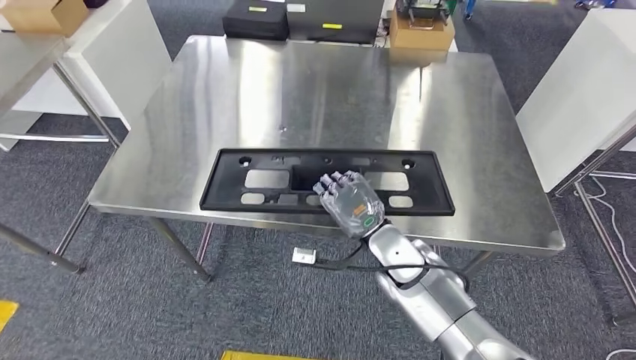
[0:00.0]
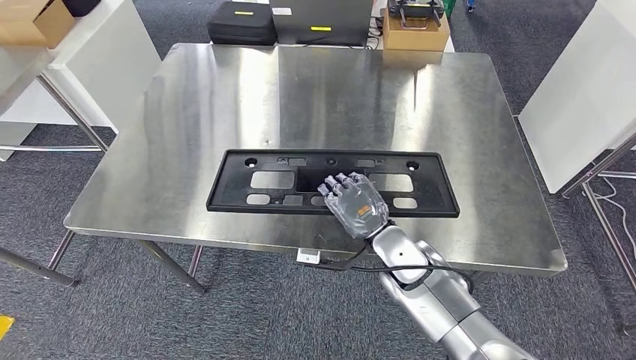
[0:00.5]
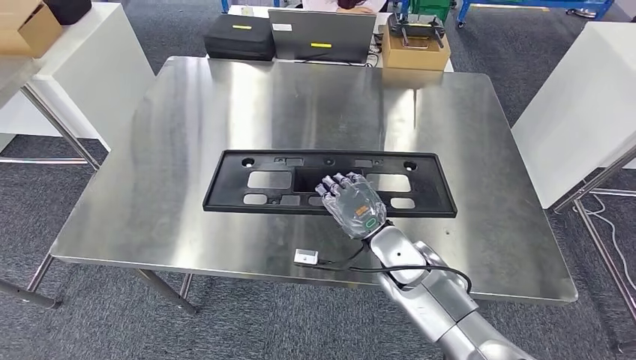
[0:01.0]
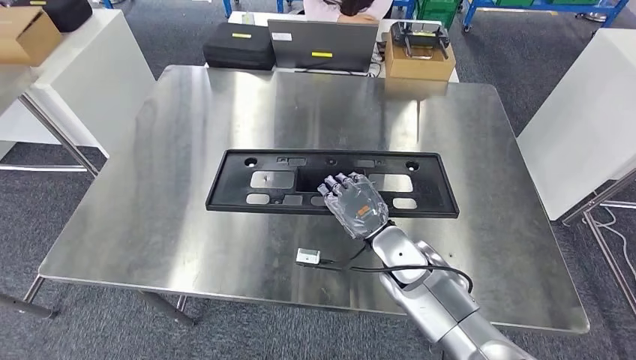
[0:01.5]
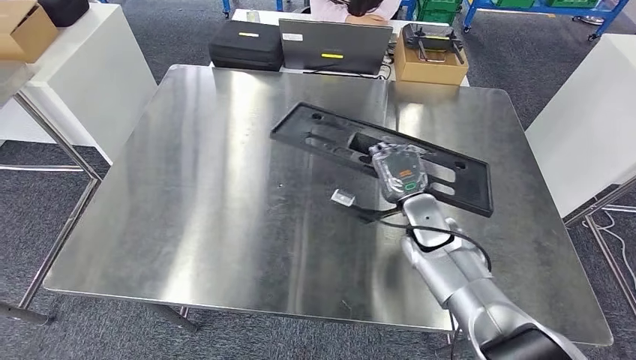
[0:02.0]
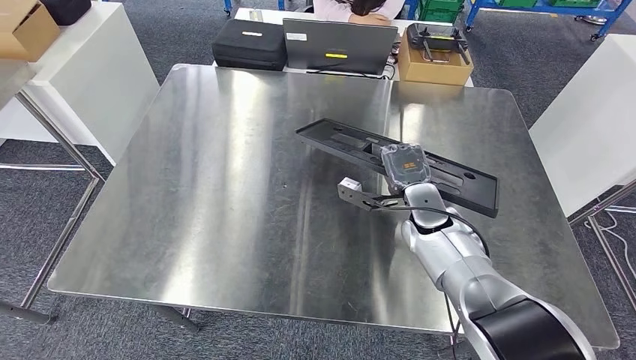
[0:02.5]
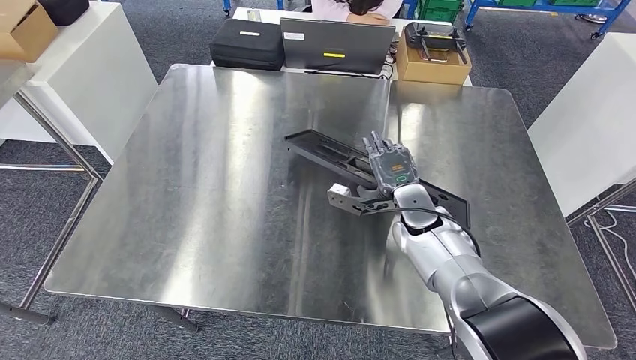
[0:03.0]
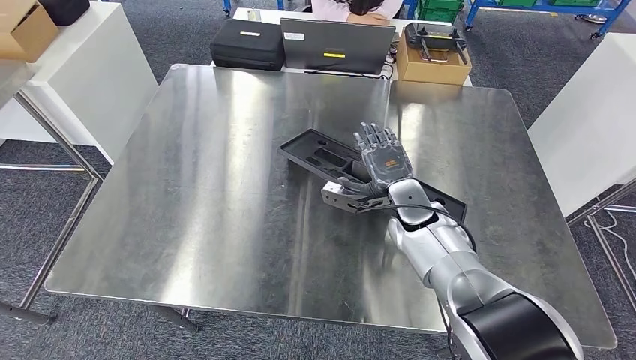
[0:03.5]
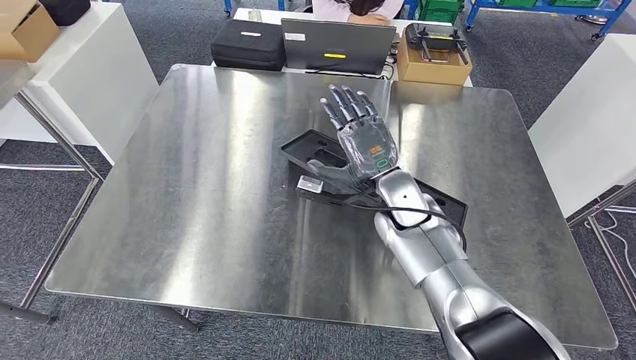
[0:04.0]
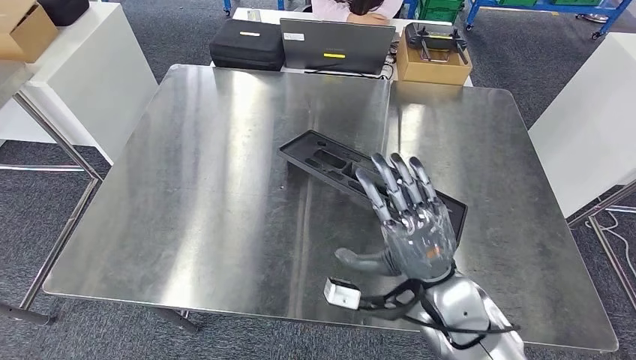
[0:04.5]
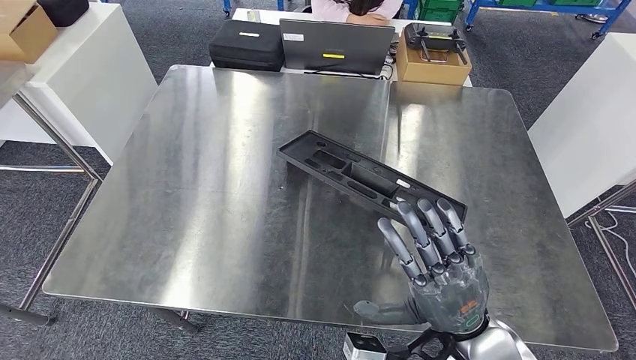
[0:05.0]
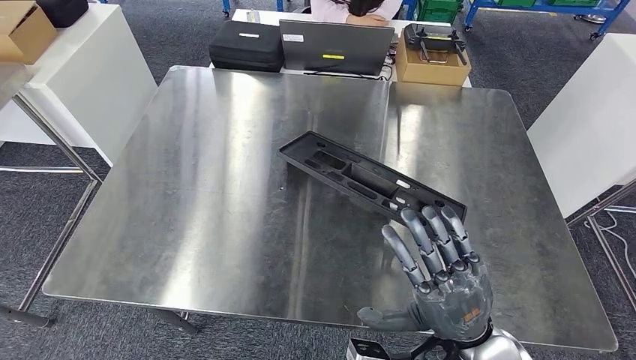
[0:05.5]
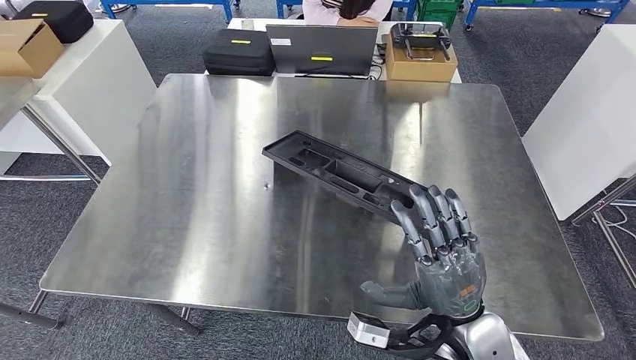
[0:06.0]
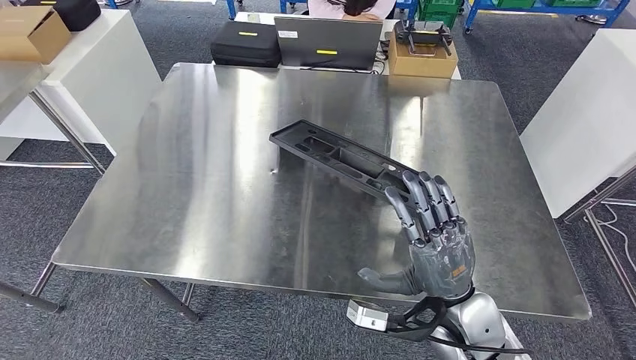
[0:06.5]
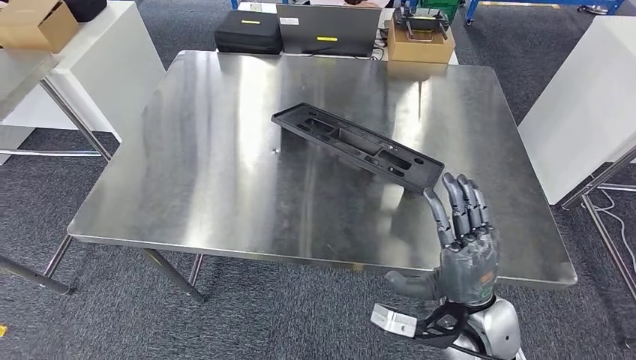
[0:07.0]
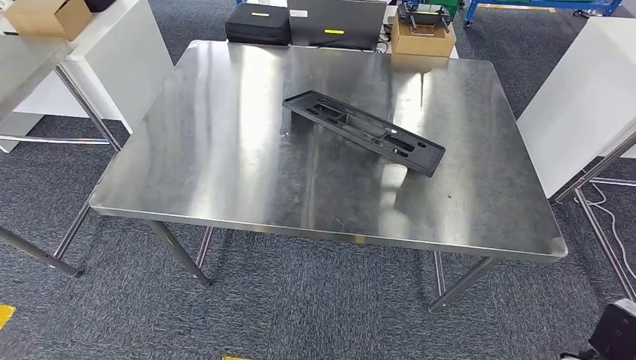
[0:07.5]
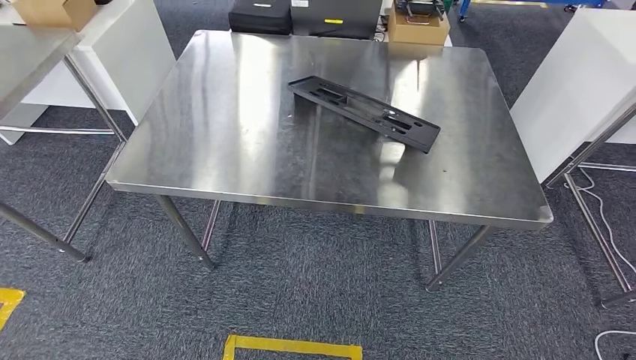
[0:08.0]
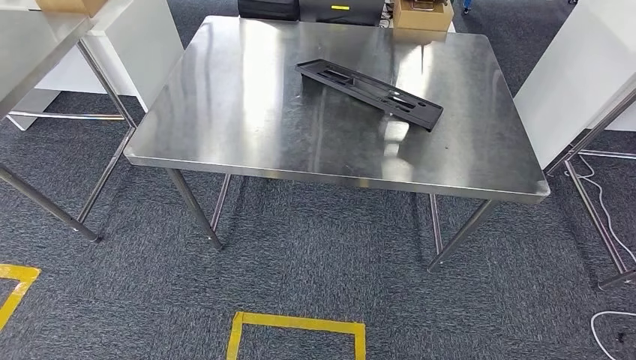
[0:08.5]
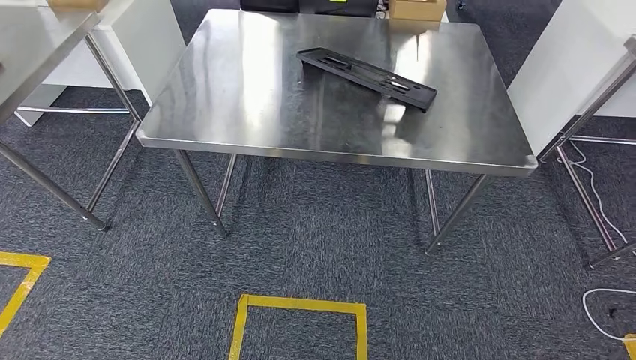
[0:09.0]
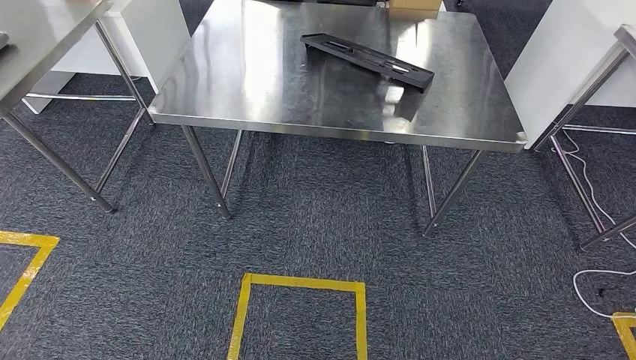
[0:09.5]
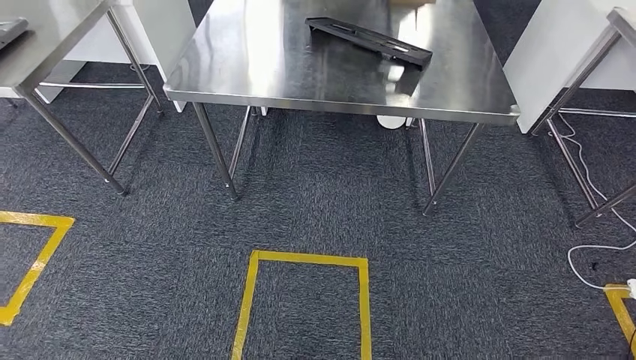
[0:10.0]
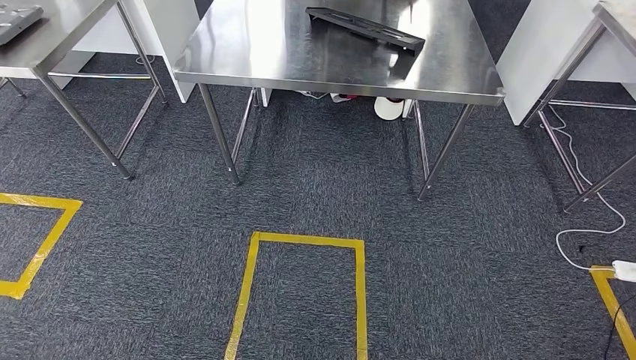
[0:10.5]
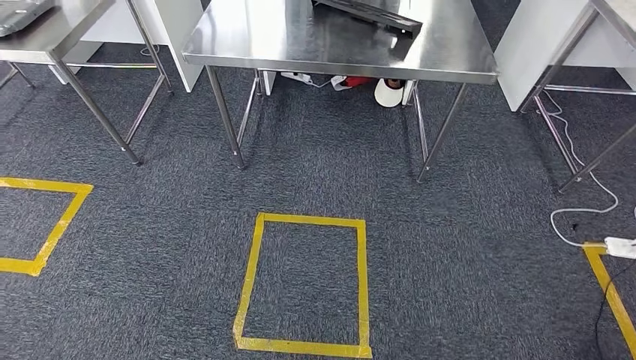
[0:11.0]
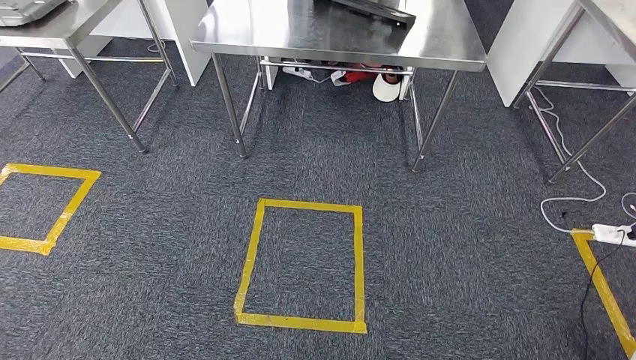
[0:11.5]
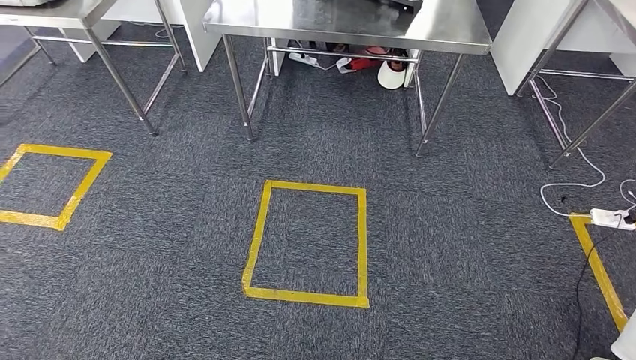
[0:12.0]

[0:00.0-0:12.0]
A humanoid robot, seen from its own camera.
Step, 0:00.0 to 0:06.5: Insert the large material into the corresponding slot on the workbench.
0:02.0 to 0:04.0: The right hand heads to the left, covering some 5 cm.

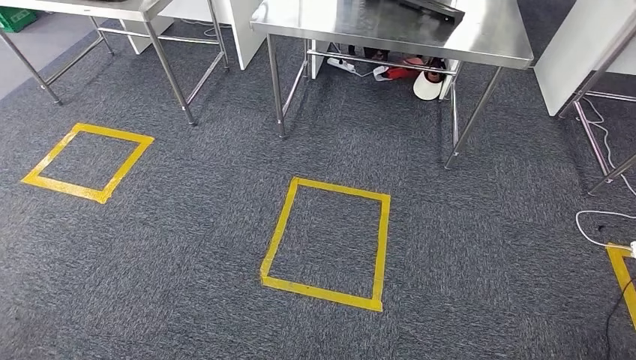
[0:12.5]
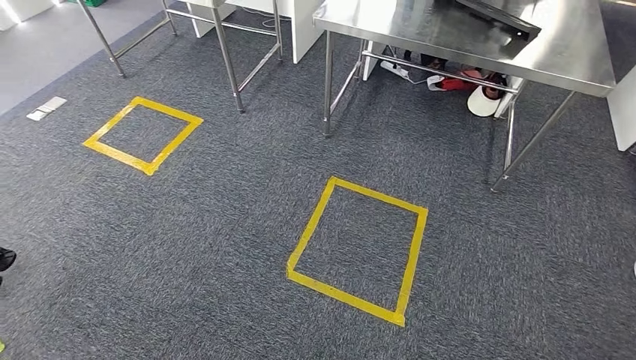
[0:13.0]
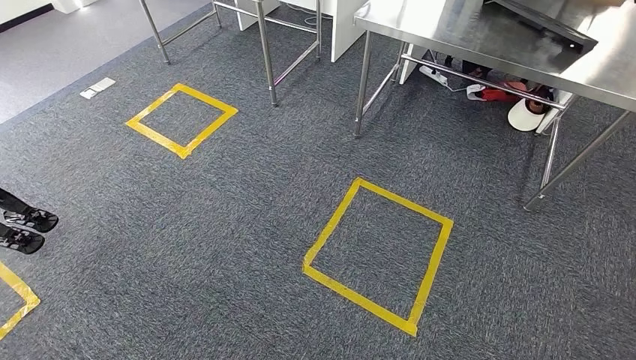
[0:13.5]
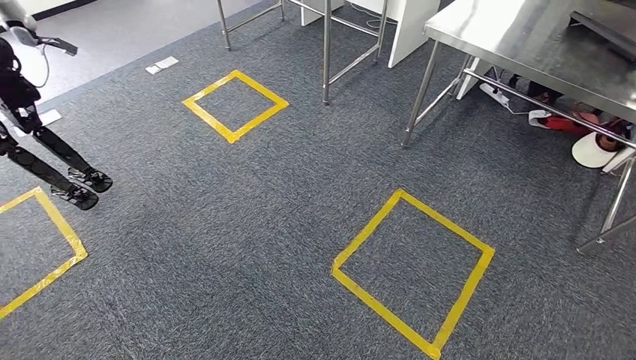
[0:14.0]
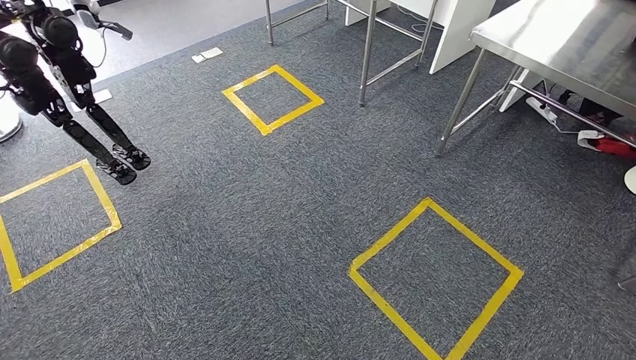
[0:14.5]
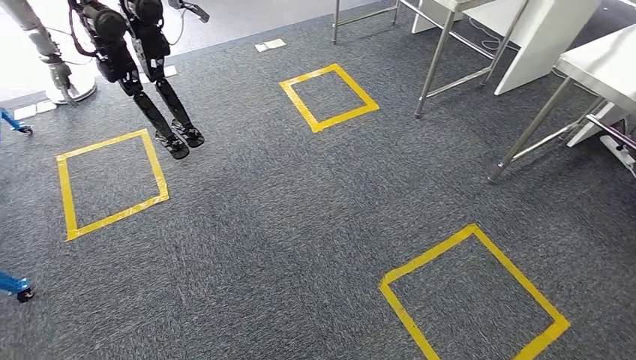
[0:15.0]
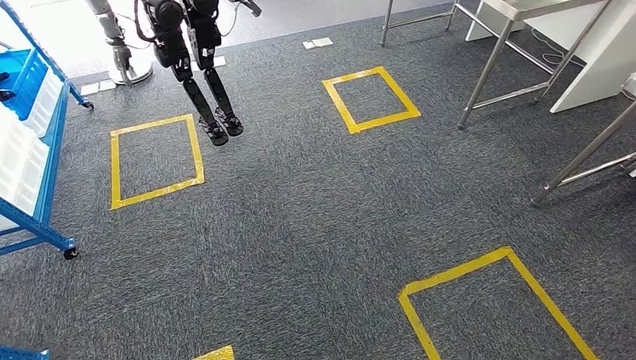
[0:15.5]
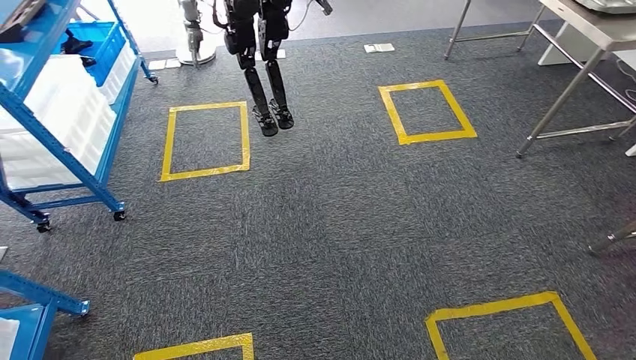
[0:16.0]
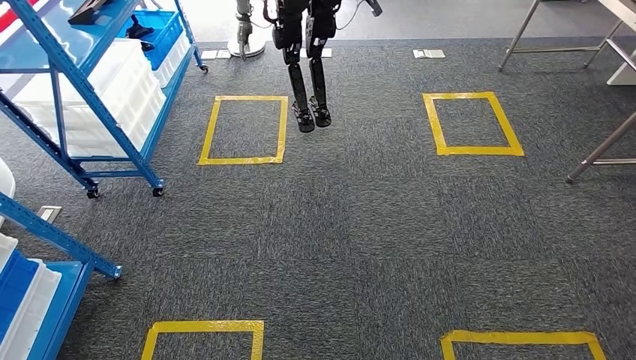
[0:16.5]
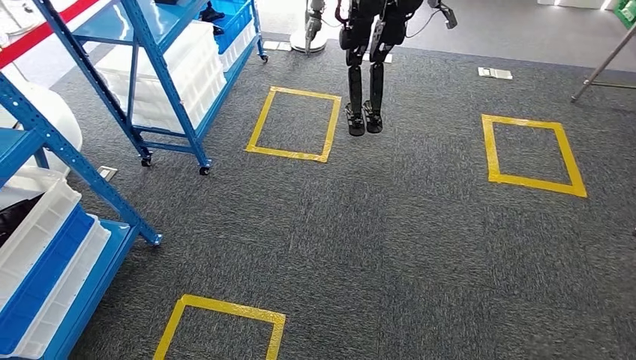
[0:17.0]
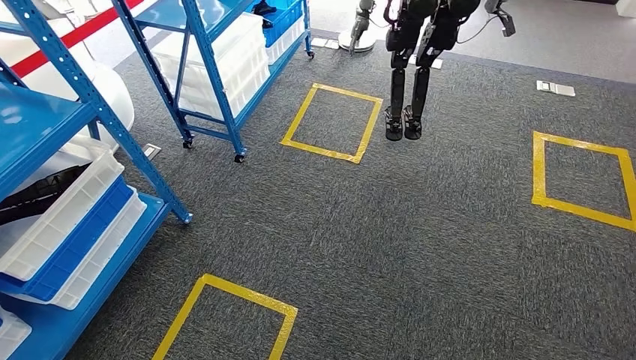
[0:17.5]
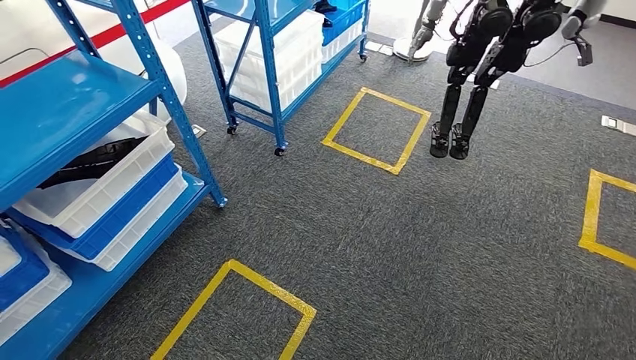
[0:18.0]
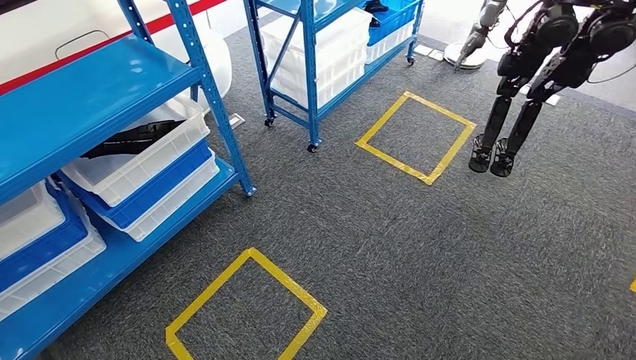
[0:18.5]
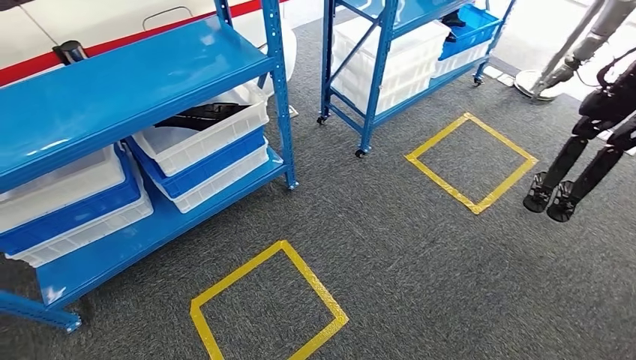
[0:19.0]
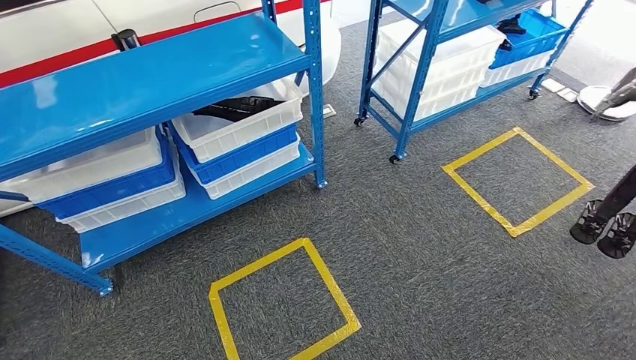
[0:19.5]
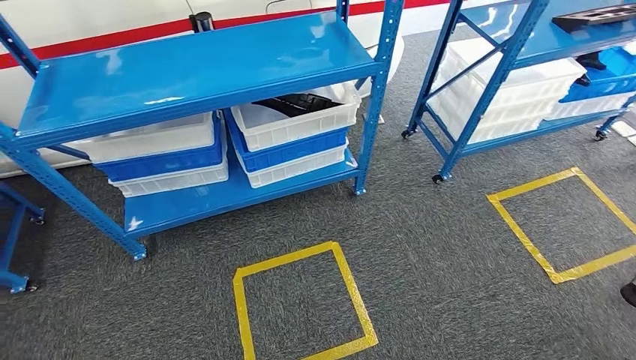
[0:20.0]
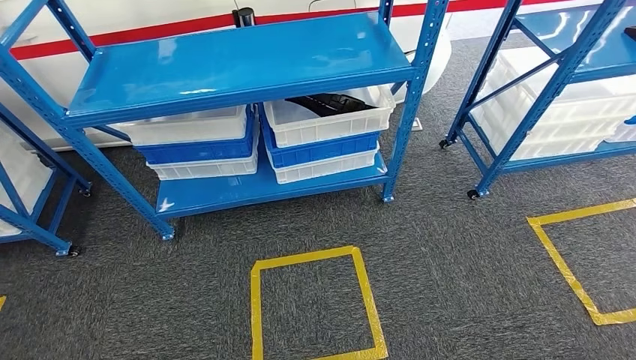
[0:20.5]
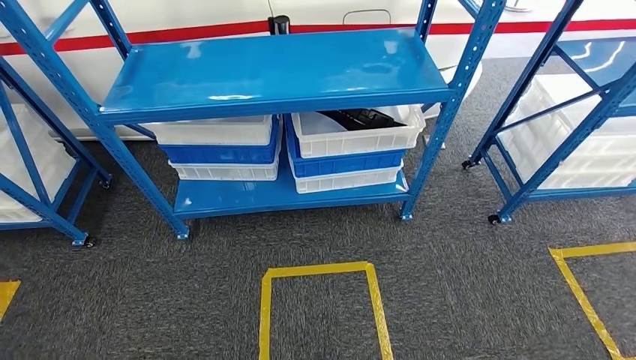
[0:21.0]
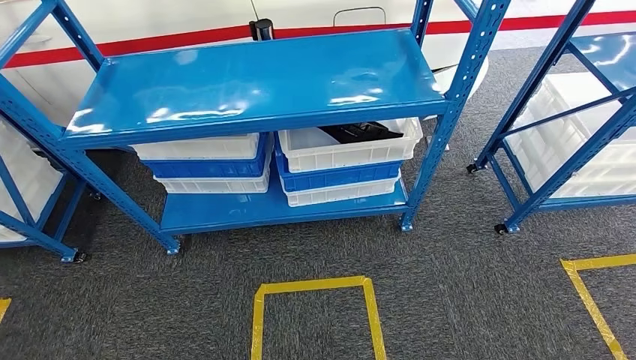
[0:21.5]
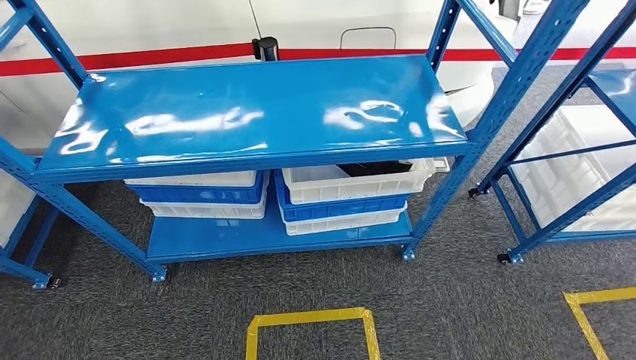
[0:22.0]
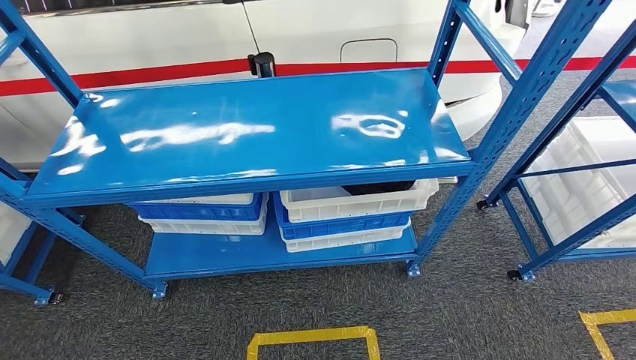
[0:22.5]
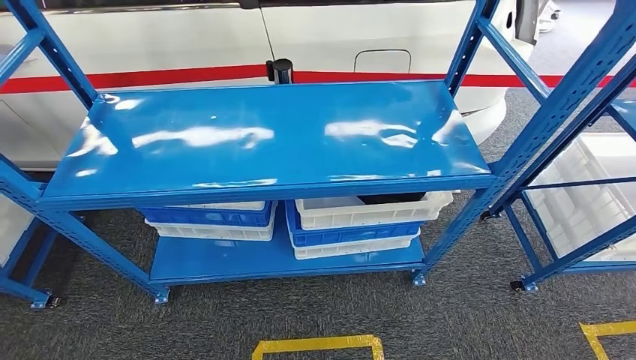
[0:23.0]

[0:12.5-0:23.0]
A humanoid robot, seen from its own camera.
Step, 0:12.5 to 0:23.0: Move to the initial position of the shelf.
